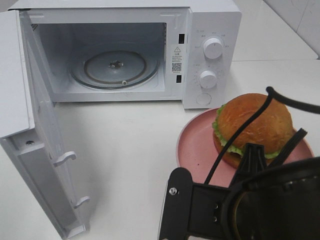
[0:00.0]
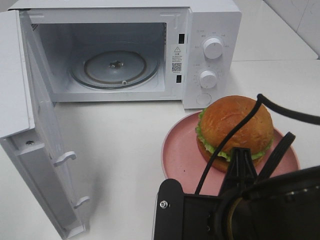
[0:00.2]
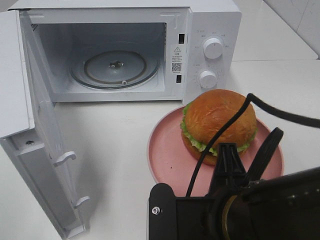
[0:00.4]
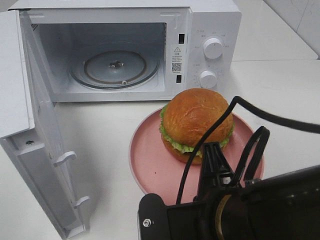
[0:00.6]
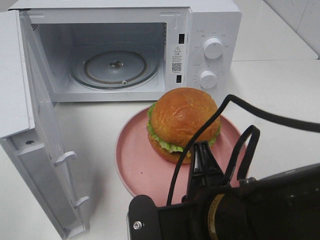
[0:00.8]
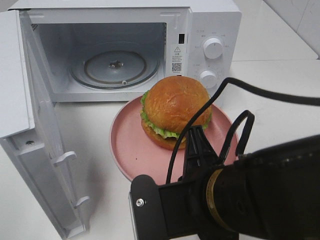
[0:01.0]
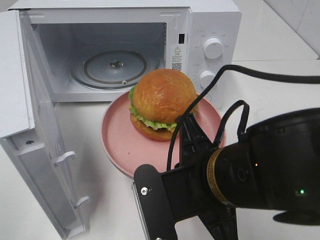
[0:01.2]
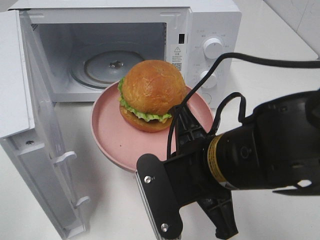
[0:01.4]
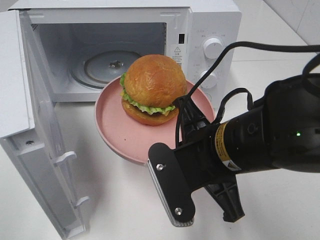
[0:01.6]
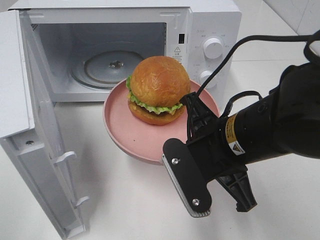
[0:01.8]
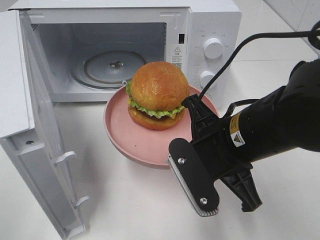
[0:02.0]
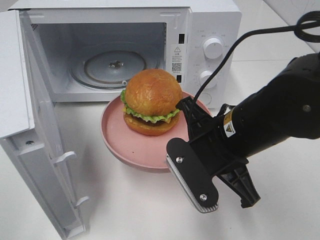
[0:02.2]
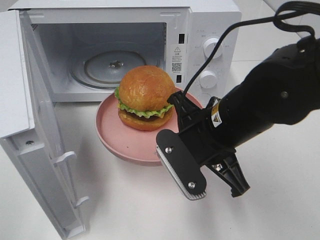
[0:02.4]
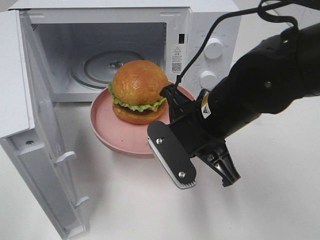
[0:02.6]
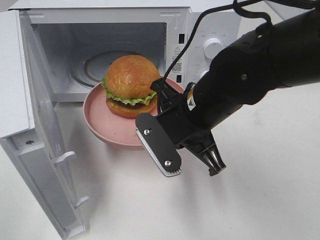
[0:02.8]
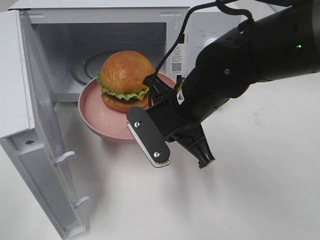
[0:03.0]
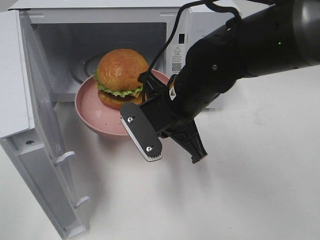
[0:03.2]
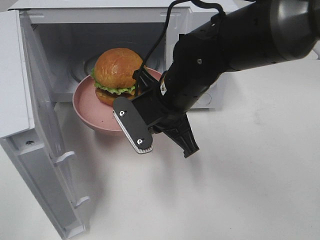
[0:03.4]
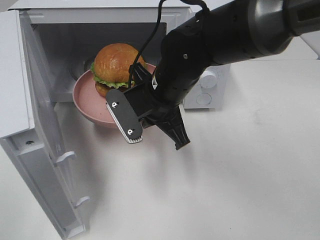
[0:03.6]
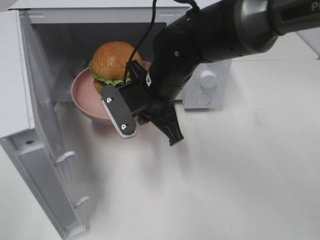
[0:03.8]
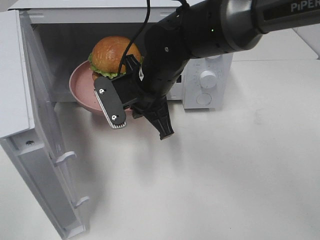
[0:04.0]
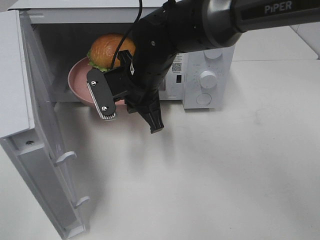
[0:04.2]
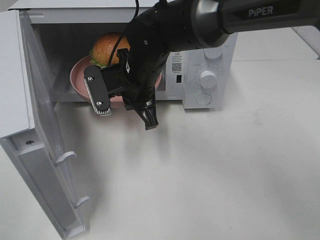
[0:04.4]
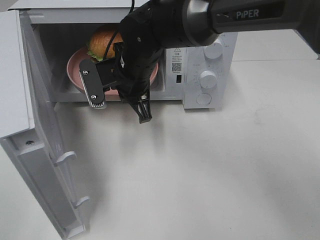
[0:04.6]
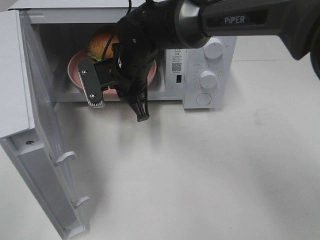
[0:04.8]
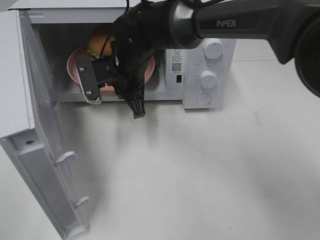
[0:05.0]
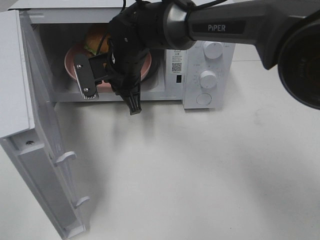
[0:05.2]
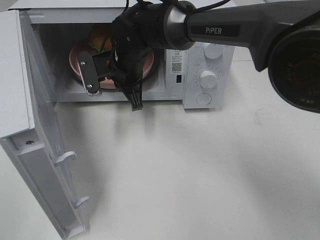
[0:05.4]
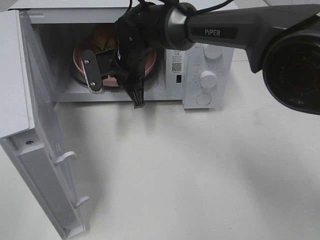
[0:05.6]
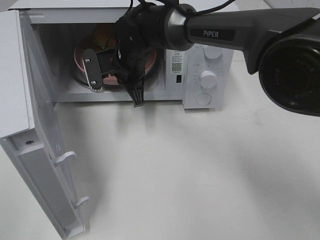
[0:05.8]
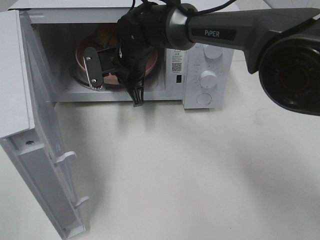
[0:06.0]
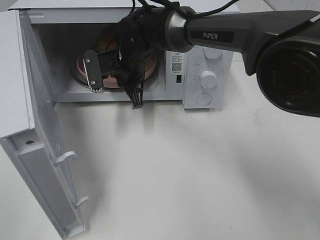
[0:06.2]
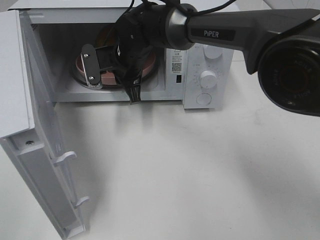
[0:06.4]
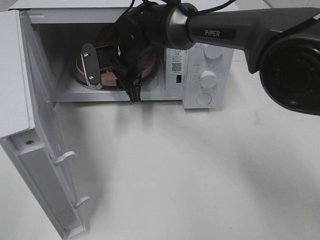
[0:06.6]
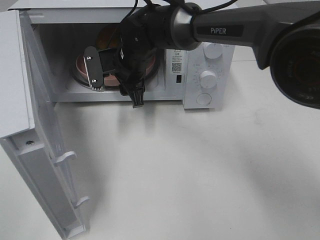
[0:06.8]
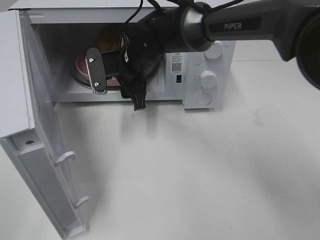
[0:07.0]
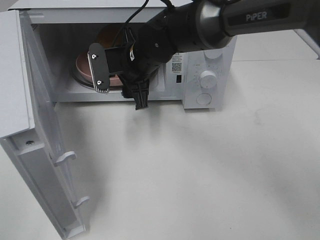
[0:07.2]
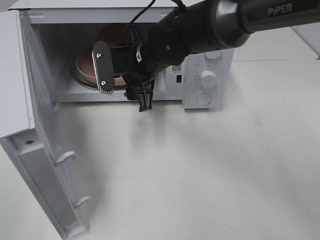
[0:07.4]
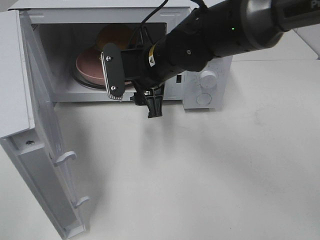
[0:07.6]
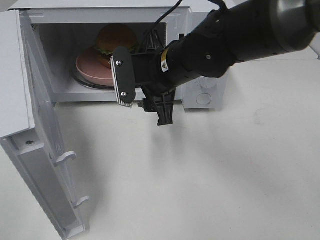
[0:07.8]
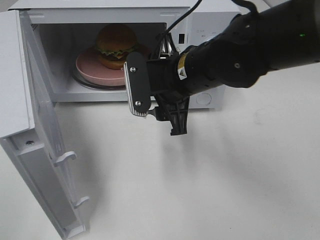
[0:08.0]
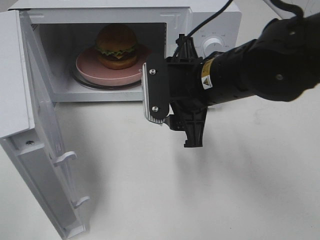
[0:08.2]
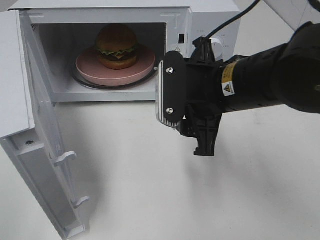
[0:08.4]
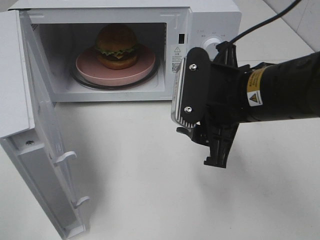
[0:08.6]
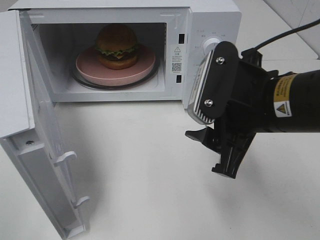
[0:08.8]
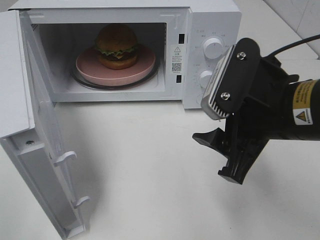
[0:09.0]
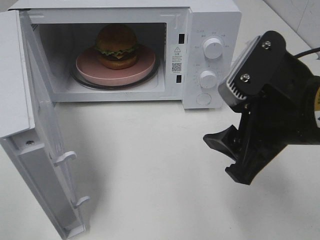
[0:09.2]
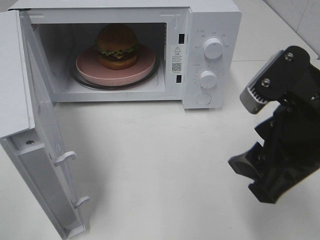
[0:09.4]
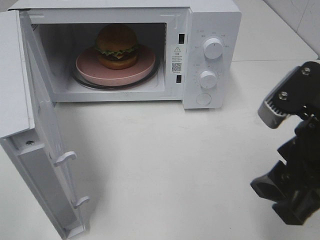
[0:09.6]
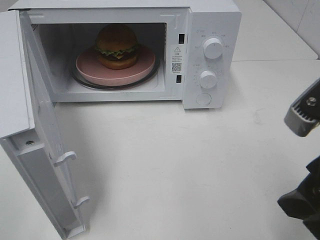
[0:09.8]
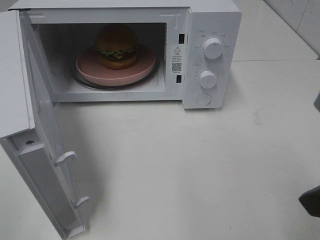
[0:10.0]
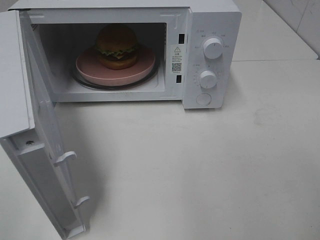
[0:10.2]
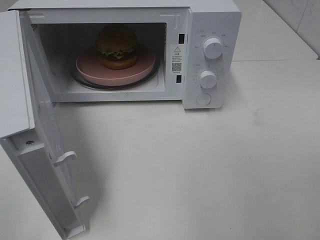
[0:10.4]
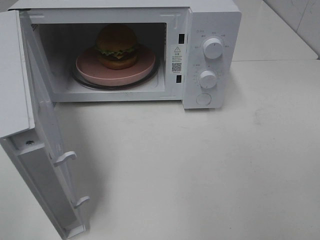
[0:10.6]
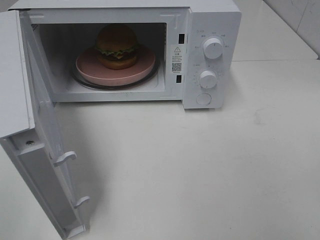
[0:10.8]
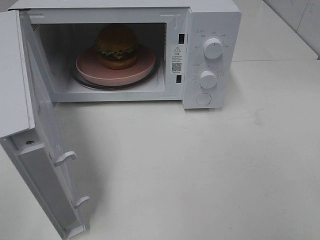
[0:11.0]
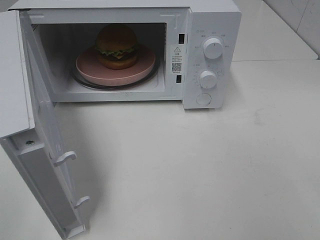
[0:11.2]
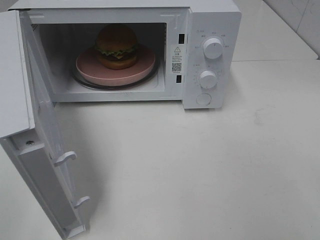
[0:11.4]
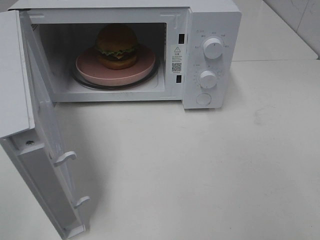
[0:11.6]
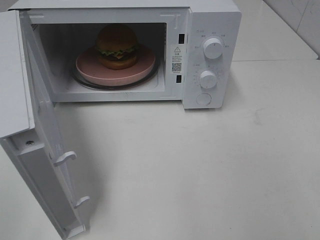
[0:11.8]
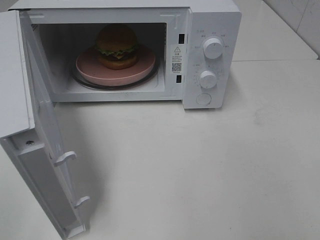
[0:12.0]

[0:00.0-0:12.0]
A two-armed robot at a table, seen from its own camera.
Task of the whole recording: Heat the burger.
Step, 0:00.0 to 0:06.4: Right hand: place the plate in the microwave.
0:00.0 to 0:01.6: The right gripper heads forward, covering some 10 cm.
0:01.6 to 0:03.0: The right gripper is displaced forward by approximately 10 cm.
0:03.0 to 0:04.4: The right gripper goes approximately 10 cm forward and to the left.
0:04.4 to 0:06.0: The right gripper moves forward, about 5 cm.
0:06.0 to 0:07.6: The right gripper goes roughly 10 cm backward and to the right, and opens up.
0:07.6 to 0:09.0: The right gripper moves backward and to the right, some 20 cm.
0:09.0 to 0:10.4: The right gripper is displaced backward, to the right and upward by about 15 cm.

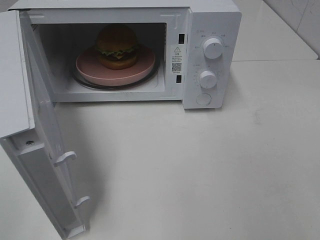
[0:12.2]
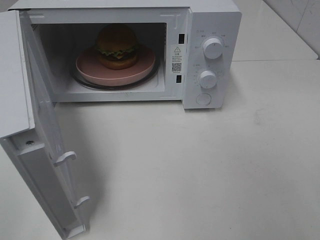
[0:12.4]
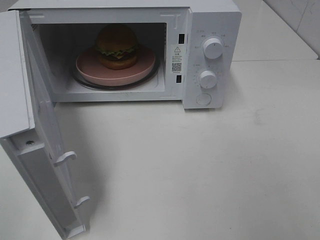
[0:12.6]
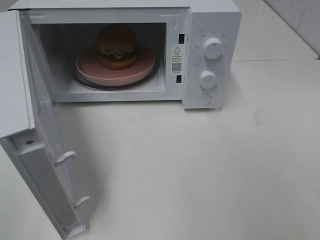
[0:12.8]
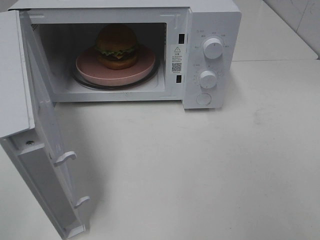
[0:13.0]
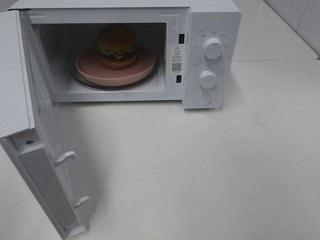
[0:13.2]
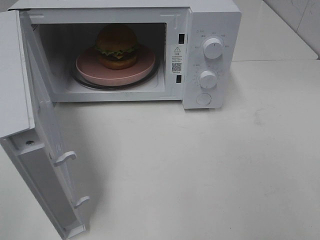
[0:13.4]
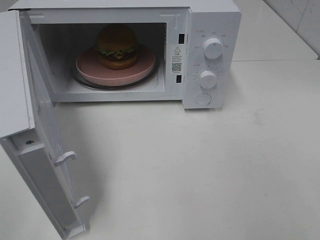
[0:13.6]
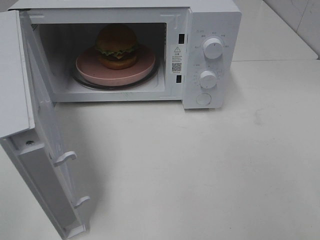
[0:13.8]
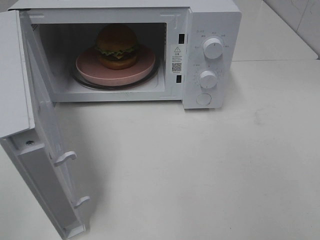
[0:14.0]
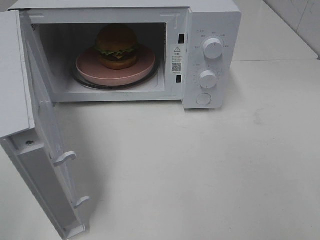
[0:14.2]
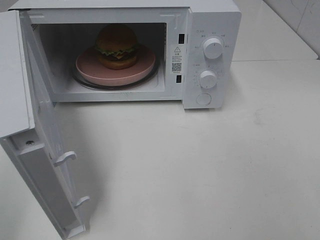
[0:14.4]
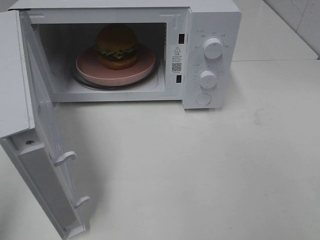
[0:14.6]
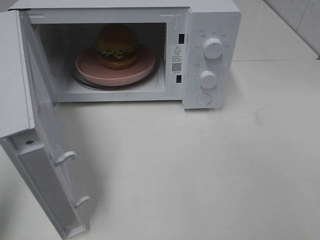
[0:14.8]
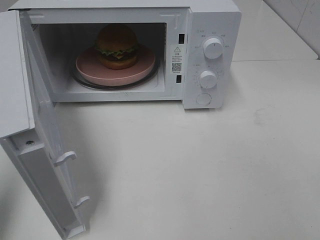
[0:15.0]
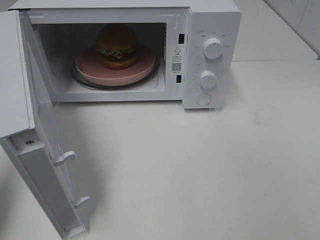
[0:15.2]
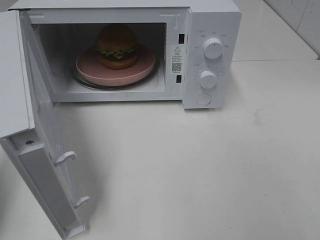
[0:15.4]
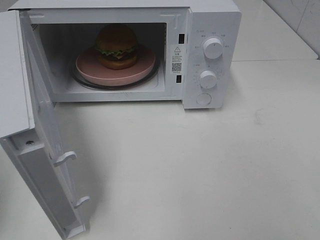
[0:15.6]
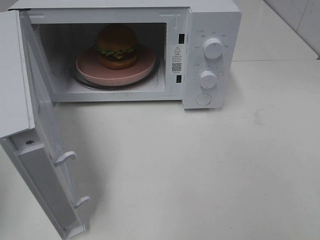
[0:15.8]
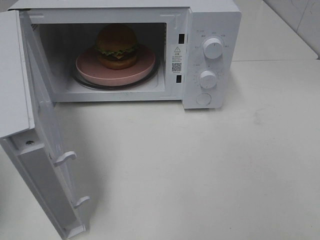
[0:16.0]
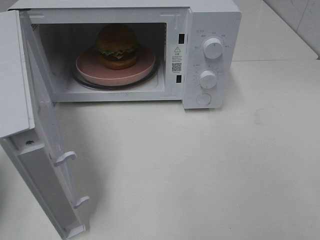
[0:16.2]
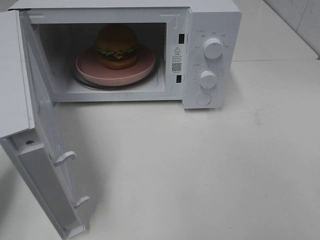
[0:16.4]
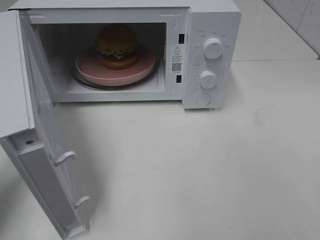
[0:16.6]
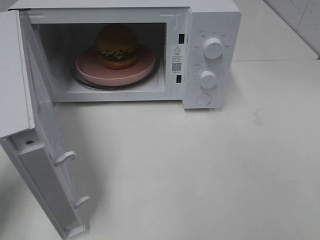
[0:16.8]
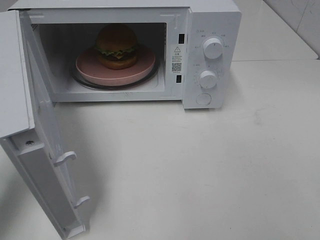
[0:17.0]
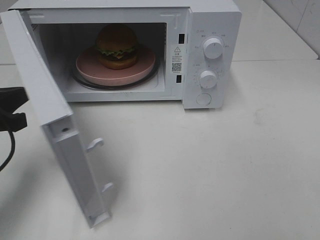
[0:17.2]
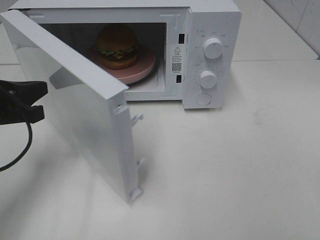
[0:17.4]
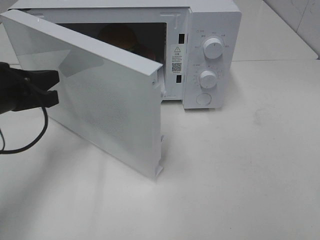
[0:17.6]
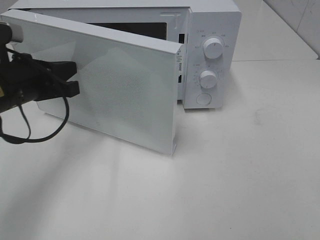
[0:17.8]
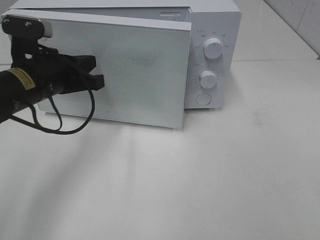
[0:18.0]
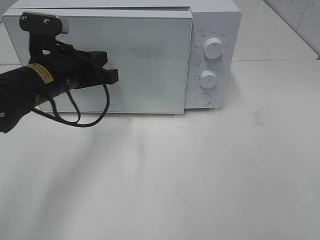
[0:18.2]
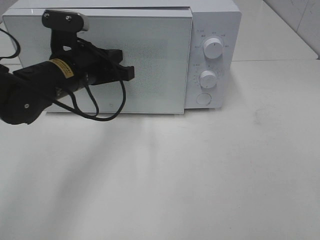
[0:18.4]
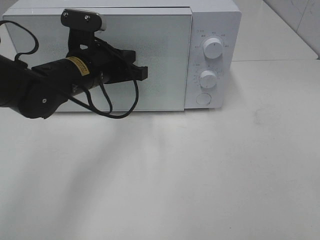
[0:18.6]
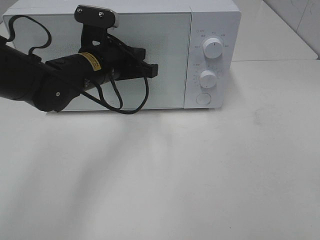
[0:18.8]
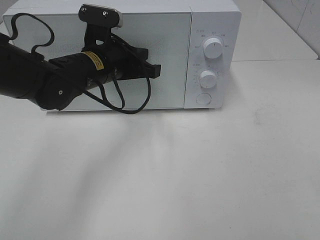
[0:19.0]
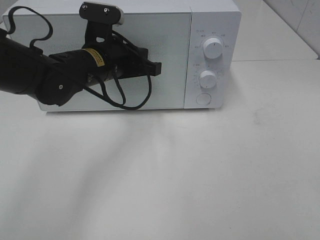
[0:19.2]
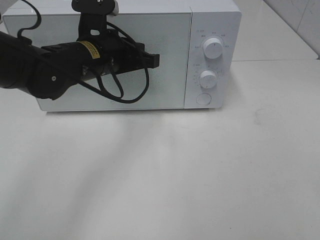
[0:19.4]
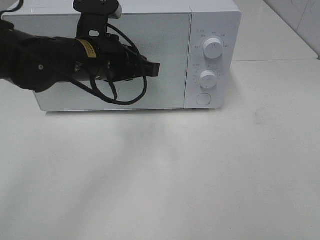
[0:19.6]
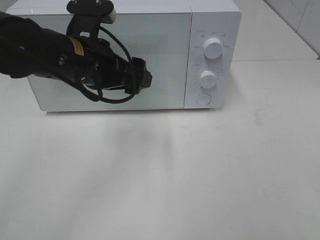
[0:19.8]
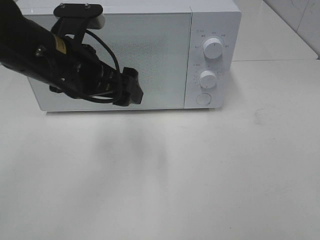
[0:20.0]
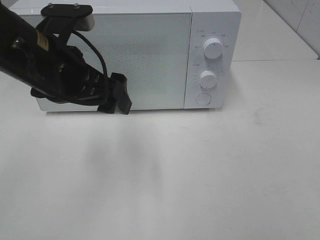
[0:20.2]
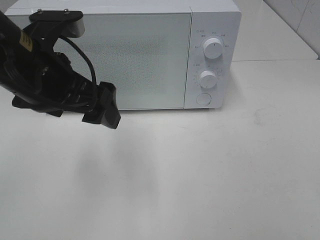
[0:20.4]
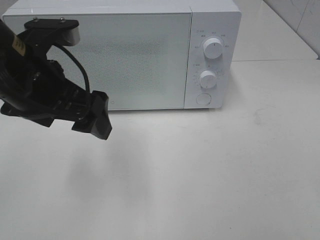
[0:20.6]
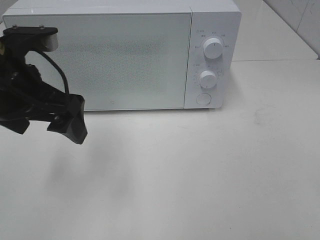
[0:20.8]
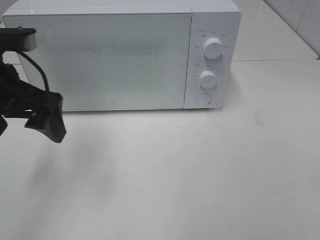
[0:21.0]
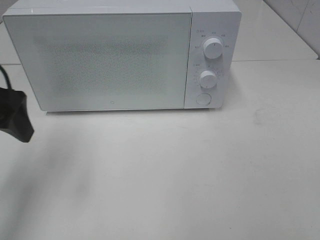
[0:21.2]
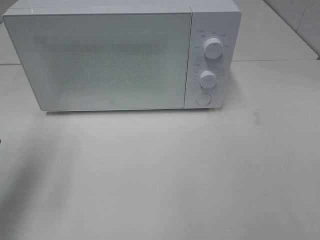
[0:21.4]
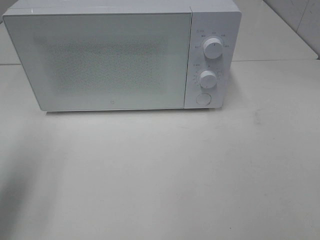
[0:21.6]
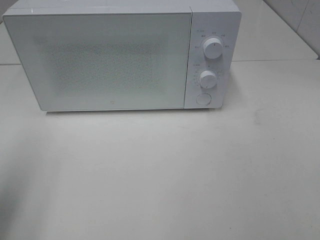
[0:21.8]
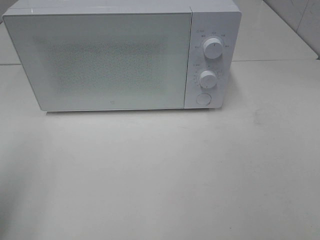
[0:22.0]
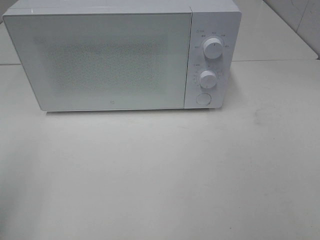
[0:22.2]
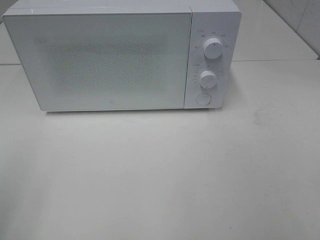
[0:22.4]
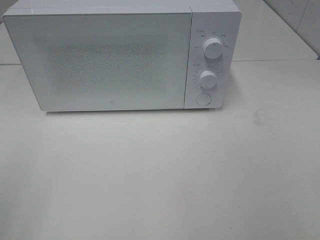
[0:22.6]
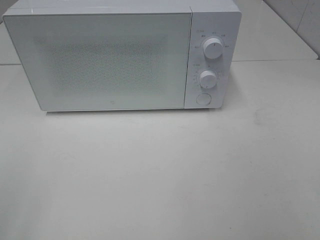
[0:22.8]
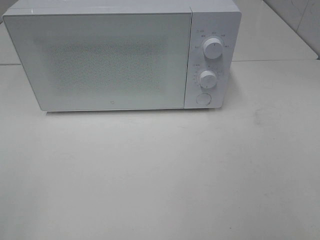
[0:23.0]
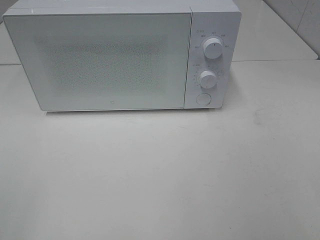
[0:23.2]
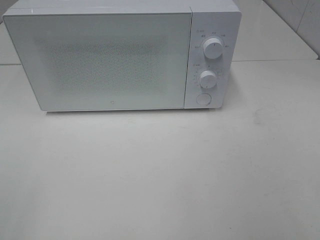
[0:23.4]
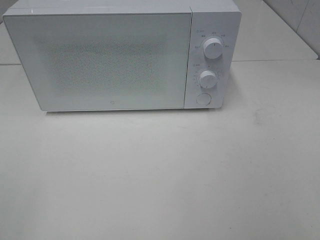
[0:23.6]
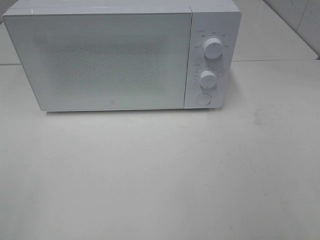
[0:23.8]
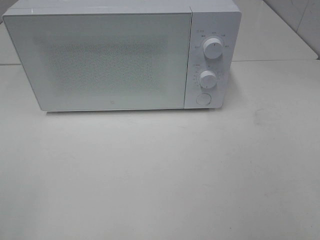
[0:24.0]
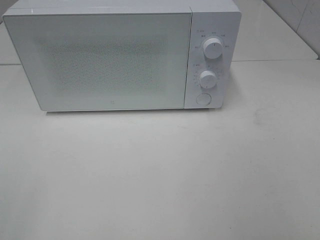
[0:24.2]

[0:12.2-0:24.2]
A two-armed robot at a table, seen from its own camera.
Task of the whole recording: Heat the burger.
Step, 0:12.2 to 0:19.4: Left hand: close the microwave door.
0:12.2 to 0:13.8: Both grippers stay about where they are.
0:13.8 to 0:15.2: The left gripper moves forward, some 15 cm, and closes up.
0:16.6 to 0:18.2: The left gripper shifts about 20 cm to the right and forward.
0:18.2 to 0:19.8: The left gripper heads to the right, covering roughly 5 cm, and opens.
0:19.8 to 0:21.2: The left gripper shifts approximately 15 cm to the left and backward.
0:21.2 to 0:22.6: The left gripper shifts about 20 cm backward.
